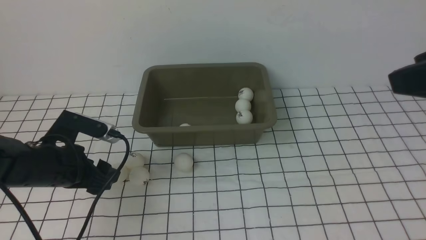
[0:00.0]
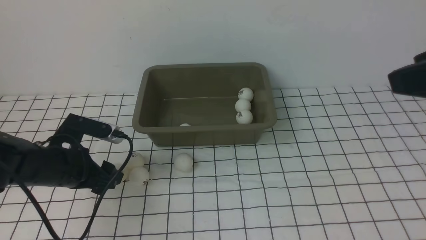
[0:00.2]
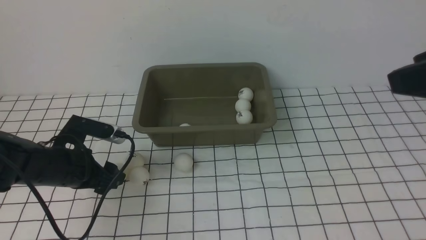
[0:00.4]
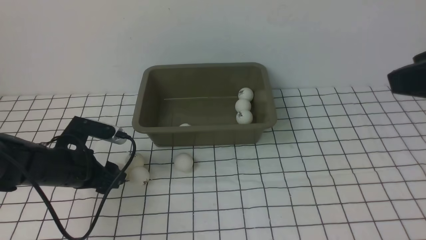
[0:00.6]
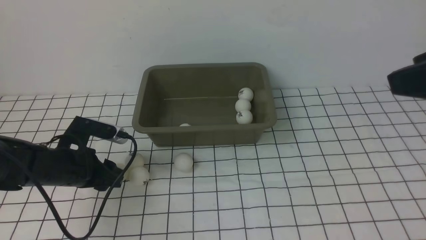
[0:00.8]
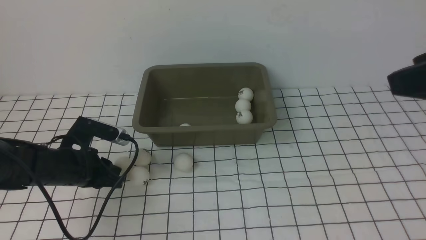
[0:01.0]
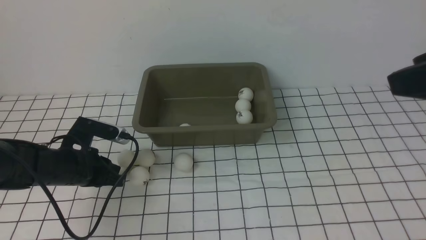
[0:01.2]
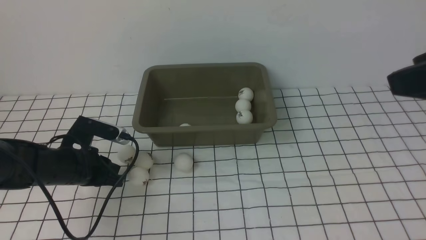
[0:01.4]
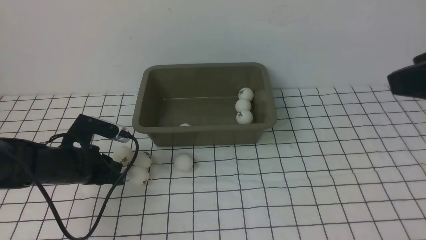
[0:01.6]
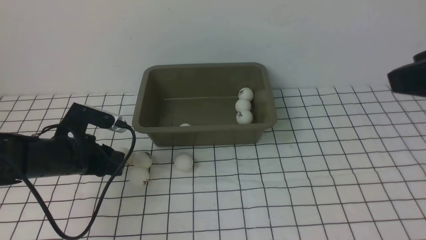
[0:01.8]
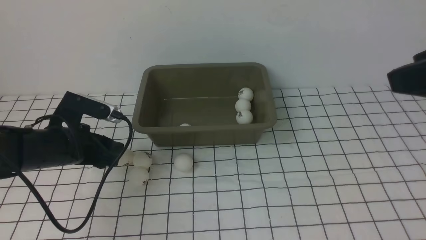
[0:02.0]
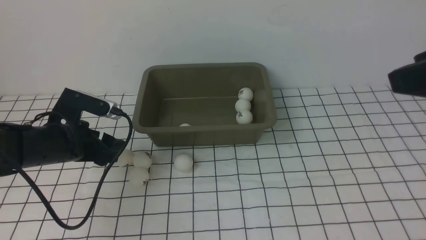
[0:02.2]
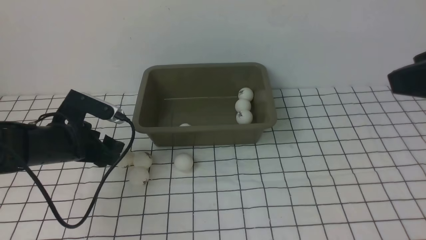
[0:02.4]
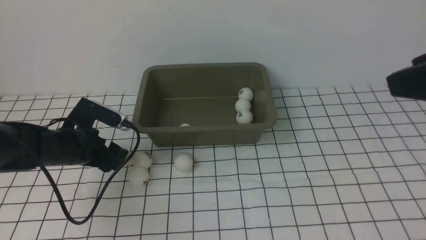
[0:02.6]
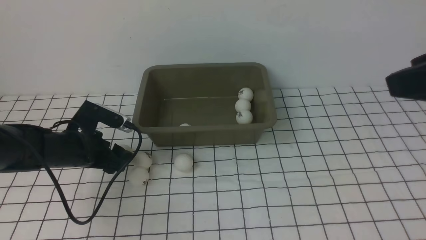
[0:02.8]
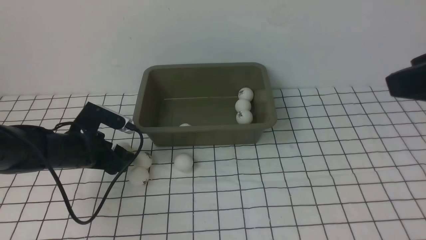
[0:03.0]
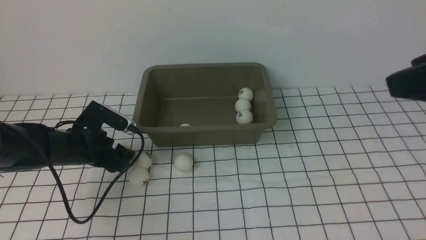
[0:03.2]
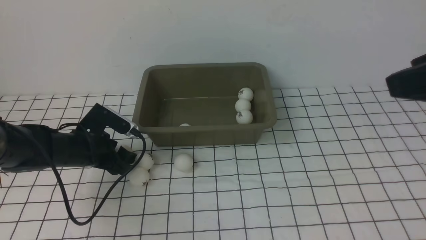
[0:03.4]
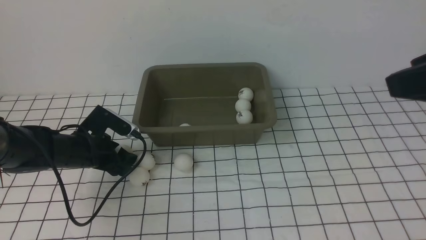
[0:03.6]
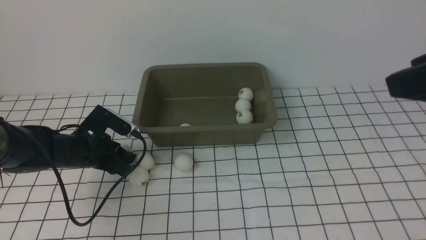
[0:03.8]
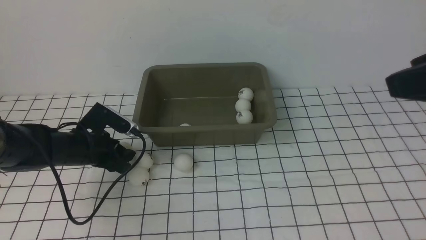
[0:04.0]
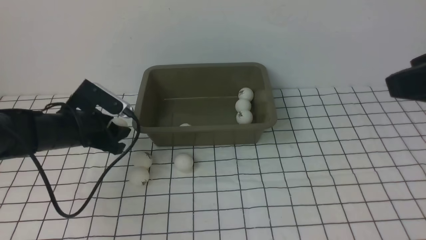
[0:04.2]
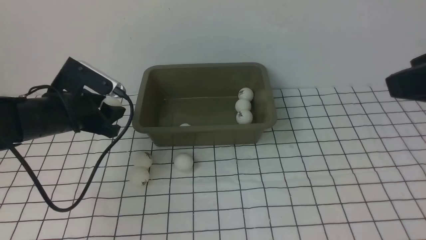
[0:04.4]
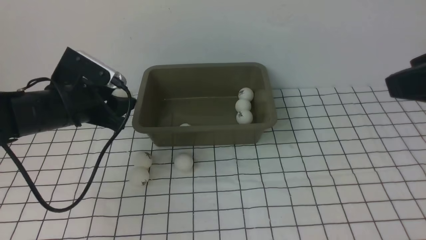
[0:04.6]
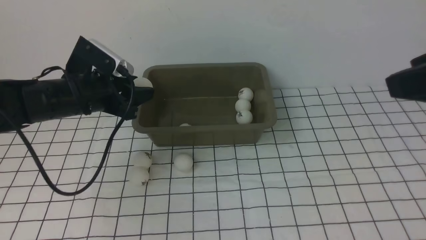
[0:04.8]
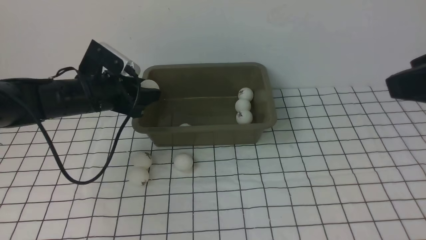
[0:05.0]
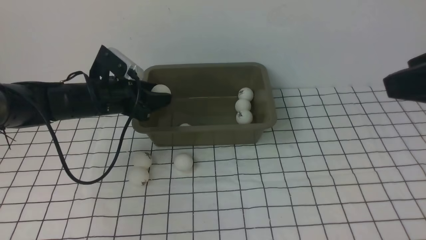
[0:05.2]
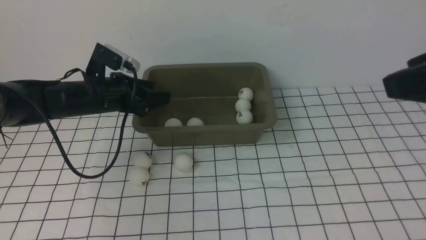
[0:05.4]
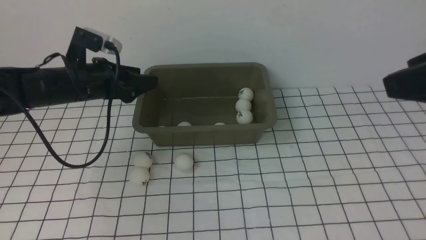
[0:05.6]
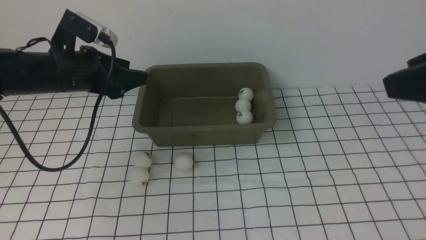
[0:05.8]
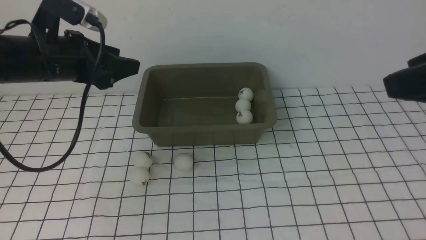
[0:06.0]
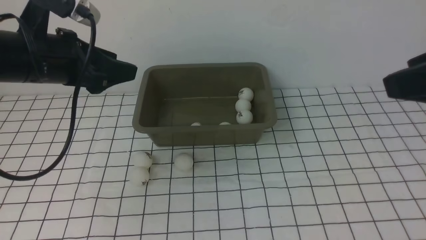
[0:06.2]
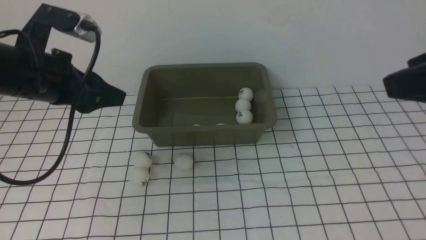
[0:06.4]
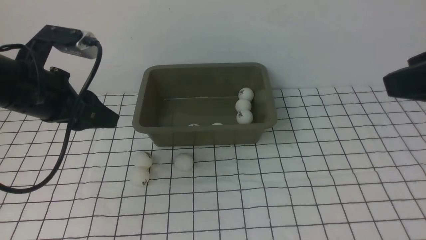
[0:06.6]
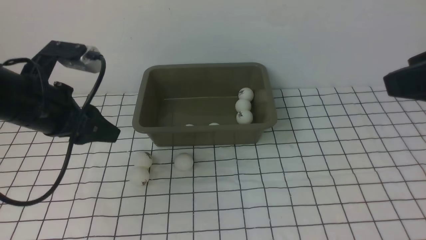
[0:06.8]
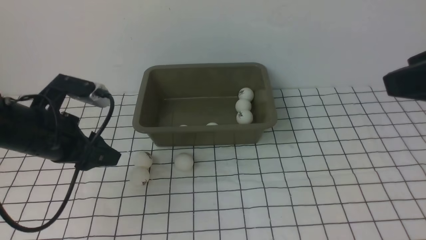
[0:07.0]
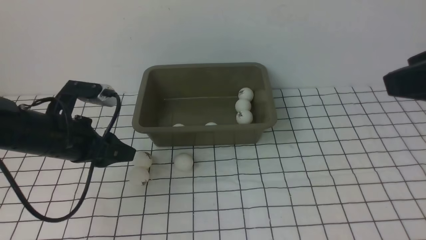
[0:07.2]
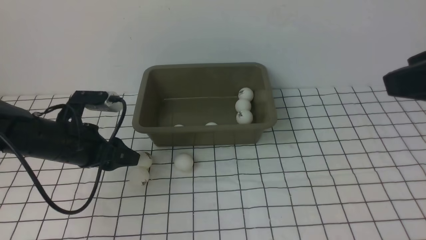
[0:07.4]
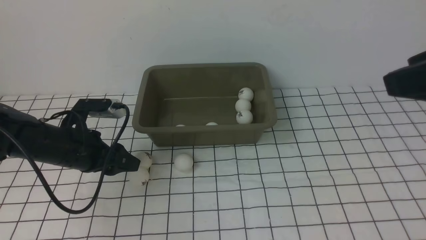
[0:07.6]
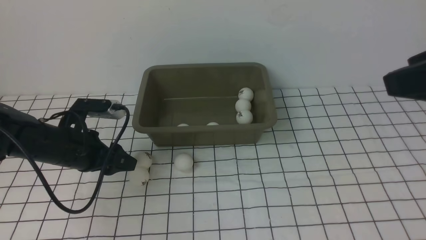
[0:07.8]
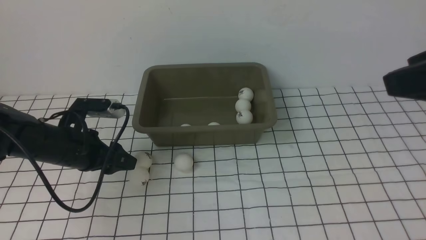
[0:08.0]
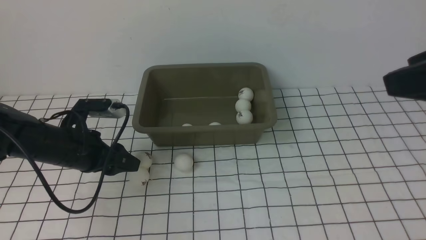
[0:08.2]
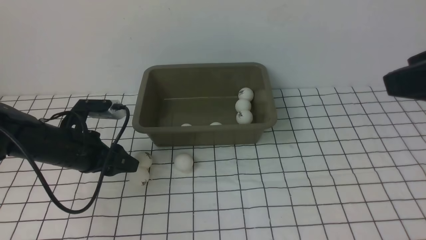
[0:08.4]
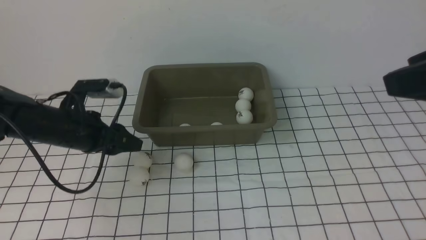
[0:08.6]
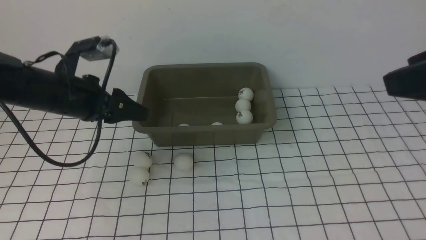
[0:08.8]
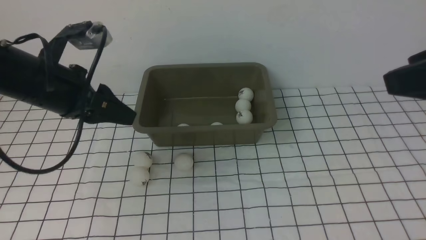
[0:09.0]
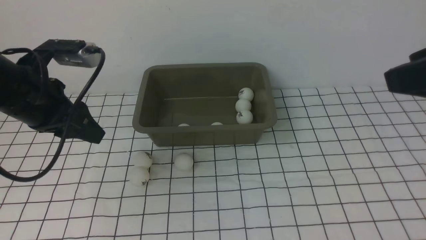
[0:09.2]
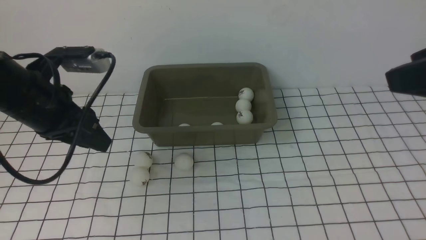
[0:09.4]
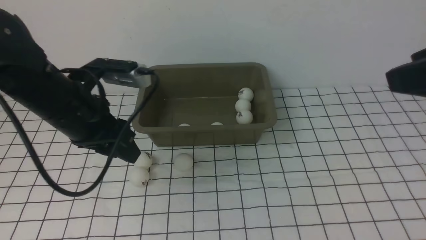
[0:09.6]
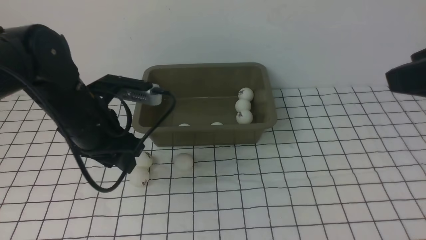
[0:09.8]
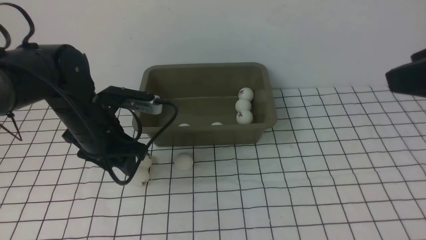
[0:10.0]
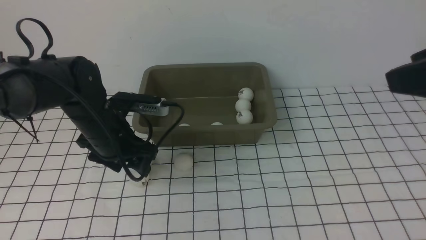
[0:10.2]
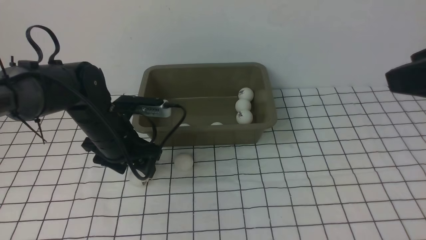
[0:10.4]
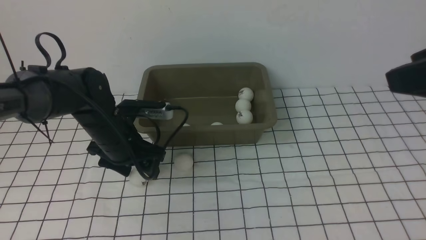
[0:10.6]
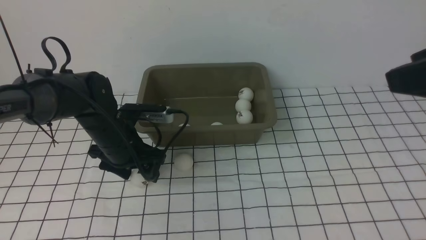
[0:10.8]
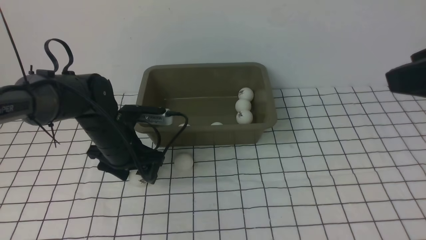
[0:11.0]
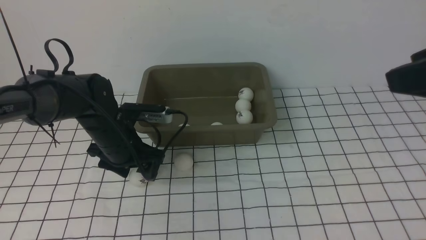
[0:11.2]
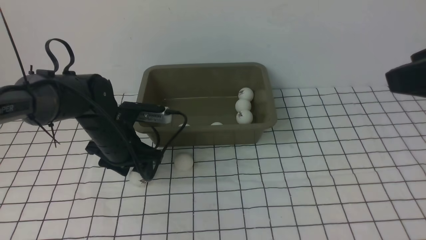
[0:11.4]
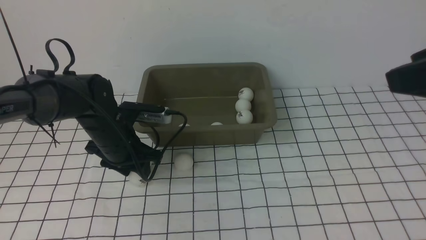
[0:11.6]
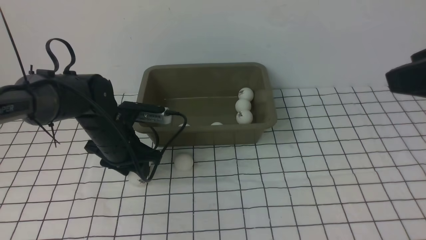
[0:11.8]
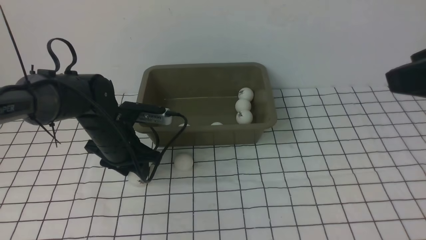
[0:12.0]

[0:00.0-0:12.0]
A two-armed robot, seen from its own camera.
Step, 0:00.0 to 0:04.2: use the left arm to clamp the table tennis ball closest to it.
Step, 0:04.4 to 0:05.4: use the left arm to put the table tennis ball into the box.
0:00.0 to 0:01.6: The left gripper closes.
0:01.6 to 0:03.0: The left gripper opens.
0:03.0 to 0:04.4: The left gripper is displaced upward by approximately 5 cm, and closes.
0:04.4 to 0:06.0: The left gripper goes some 10 cm upward, and opens its fingers.
0:06.0 to 0:07.6: The left gripper moves downward, some 15 cm.
0:07.6 to 0:09.0: The left gripper heads upward, covering roughly 10 cm.
0:09.0 to 0:10.4: The left gripper moves downward and to the right, some 10 cm, and opens its fingers.
0:10.4 to 0:12.0: The left gripper closes.

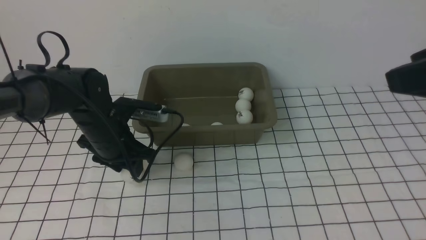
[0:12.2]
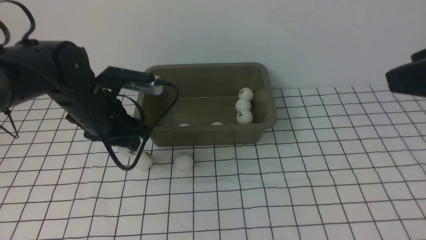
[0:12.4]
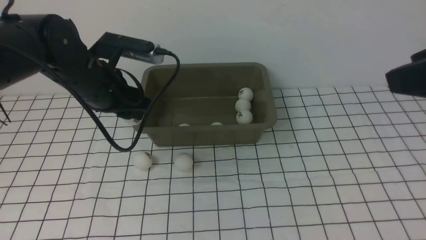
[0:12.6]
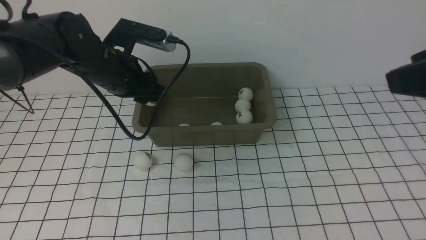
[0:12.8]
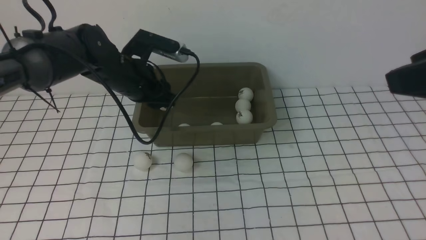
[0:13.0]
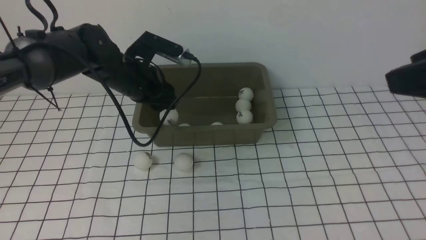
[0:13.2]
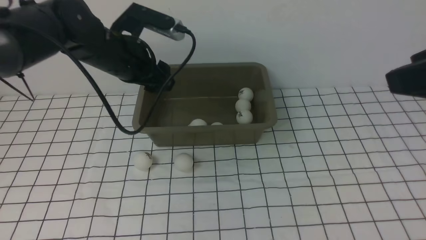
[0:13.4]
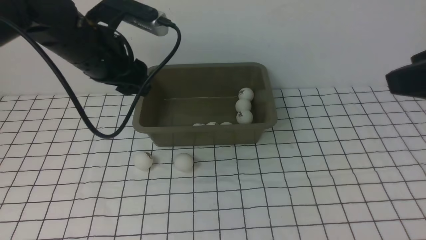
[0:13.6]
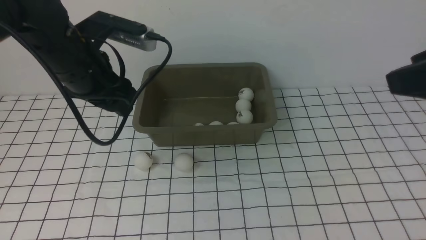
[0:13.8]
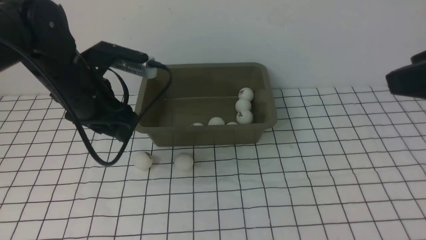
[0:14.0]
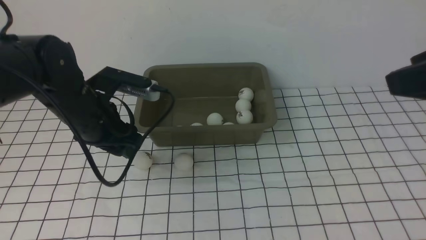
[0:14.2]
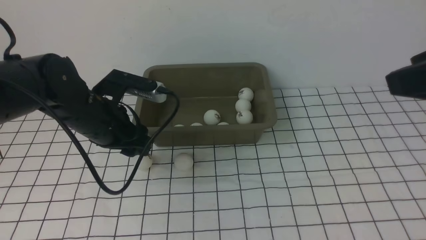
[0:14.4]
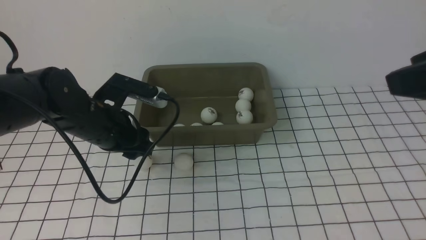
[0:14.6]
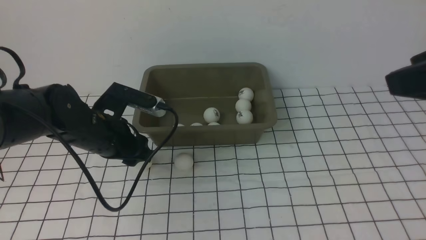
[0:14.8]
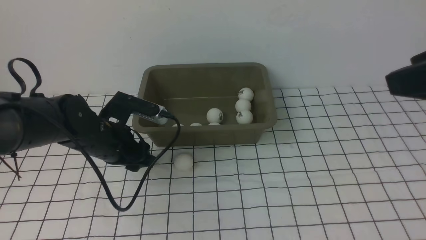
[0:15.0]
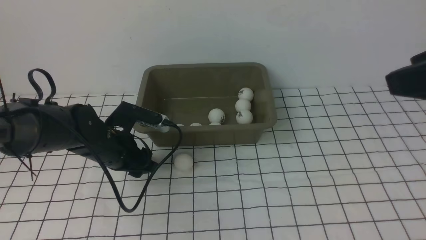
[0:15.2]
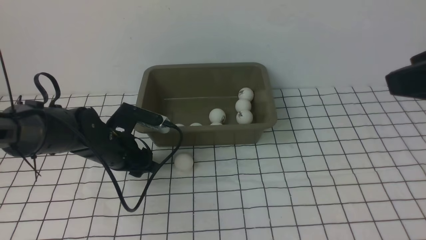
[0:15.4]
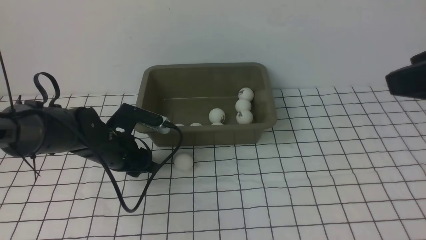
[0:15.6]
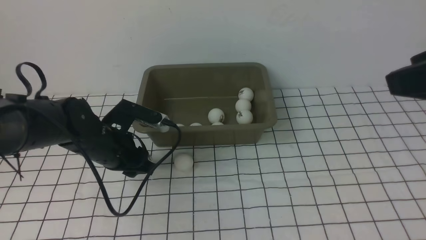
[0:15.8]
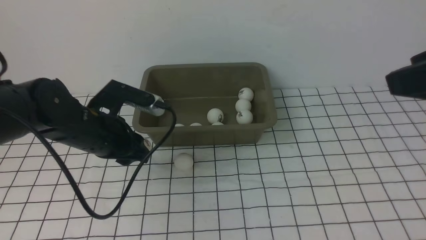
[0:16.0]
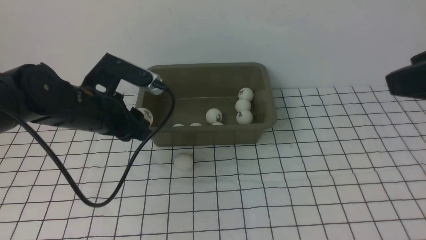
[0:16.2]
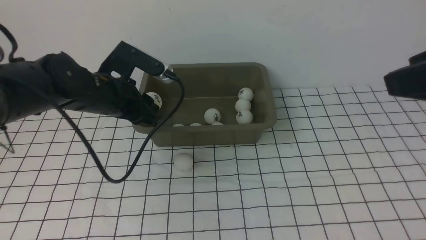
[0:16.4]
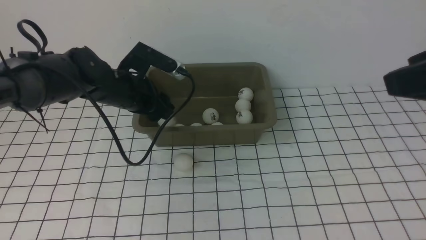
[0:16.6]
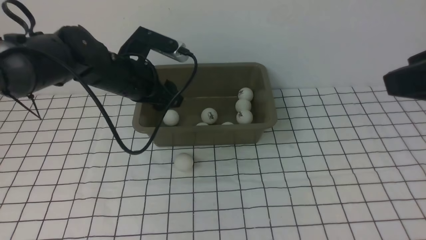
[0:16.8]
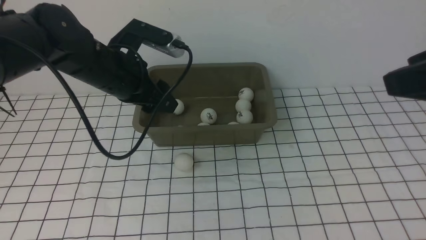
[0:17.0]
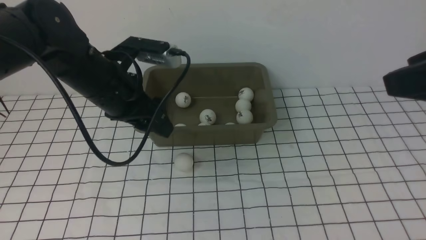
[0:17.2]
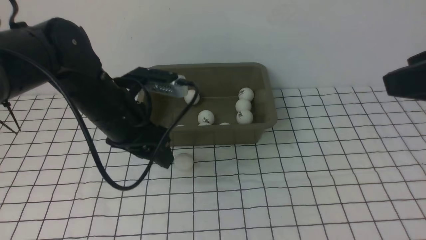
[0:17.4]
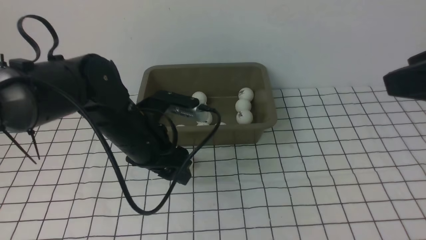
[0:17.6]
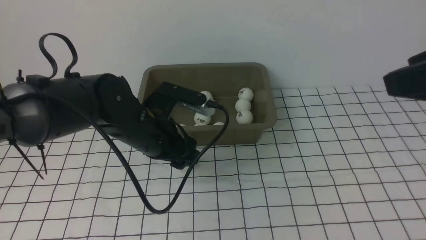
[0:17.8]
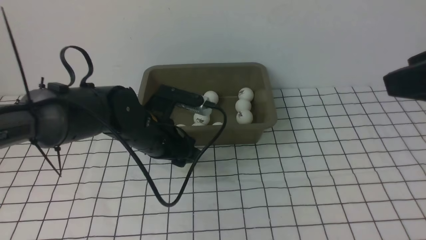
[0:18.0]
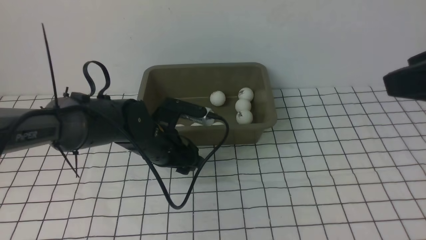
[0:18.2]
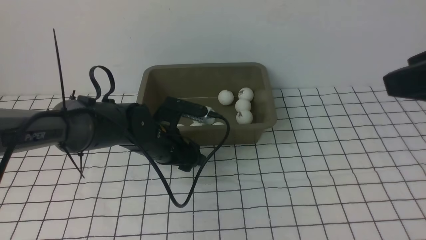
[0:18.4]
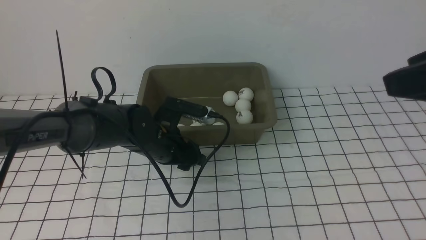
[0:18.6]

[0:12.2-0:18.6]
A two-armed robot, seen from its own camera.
Step, 0:12.4 to 0:13.4: use the left arm to put the table tennis ball into the box.
Step, 0:13.6 to 0:16.0: use the left arm to clamp the table tennis ball closest to it.
Step, 0:16.2 to 0:16.8: use the left arm to put the table tennis ball into the box.
0:12.2 to 0:13.8: The left gripper is displaced upward by approximately 5 cm, goes forward and returns, about 5 cm each way, and opens.
0:13.8 to 0:15.4: The left gripper is displaced downward by some 15 cm, and closes up.
0:15.4 to 0:17.0: The left gripper shifts about 10 cm upward, and opens its fingers.
0:17.0 to 0:18.6: The left gripper shifts some 10 cm downward, and closes.
